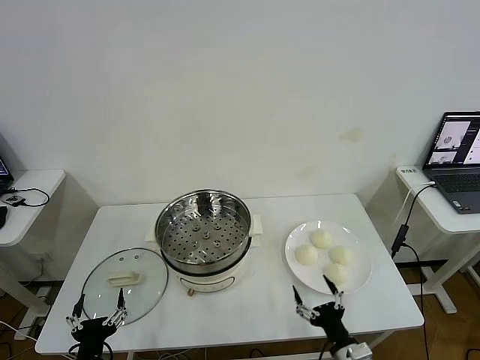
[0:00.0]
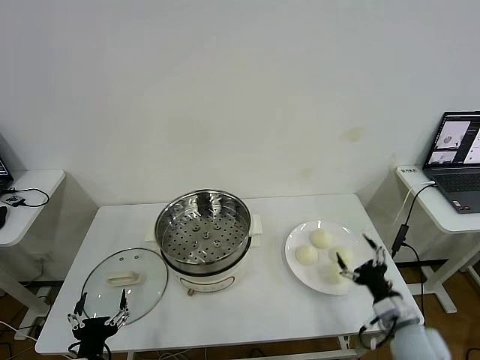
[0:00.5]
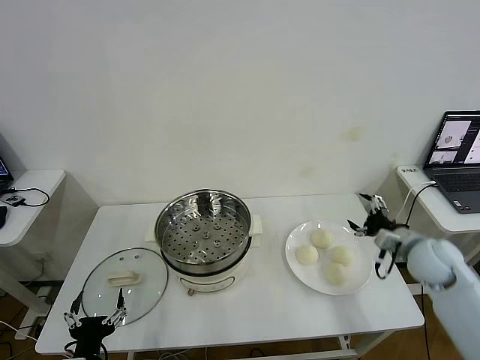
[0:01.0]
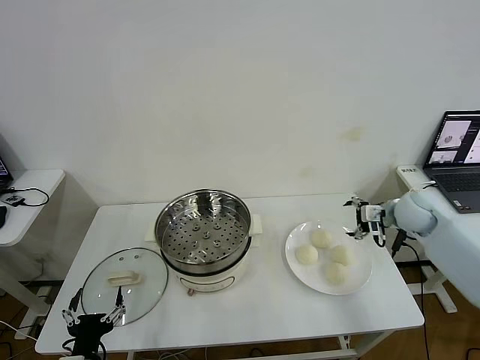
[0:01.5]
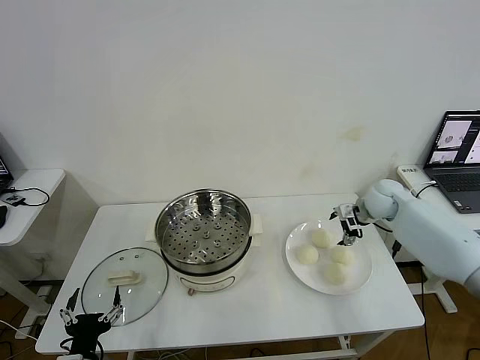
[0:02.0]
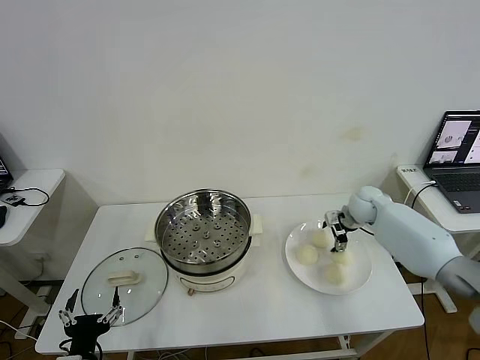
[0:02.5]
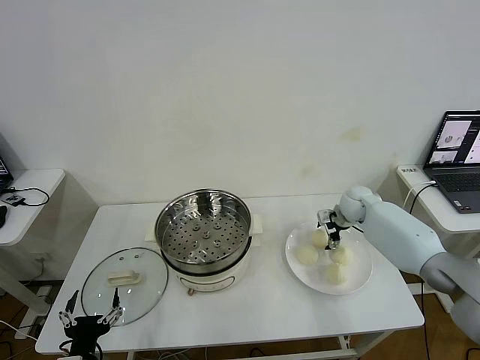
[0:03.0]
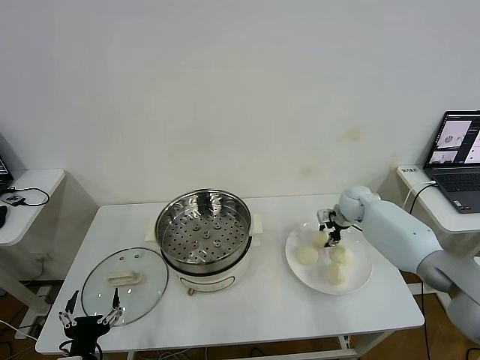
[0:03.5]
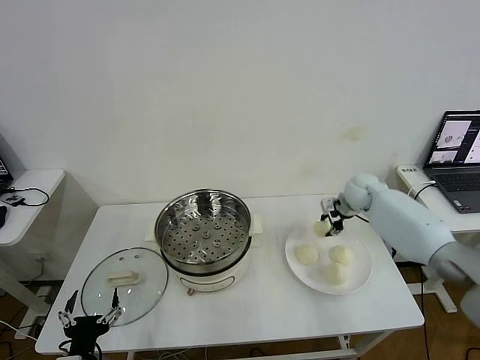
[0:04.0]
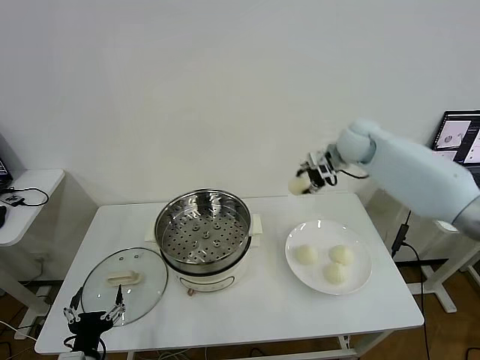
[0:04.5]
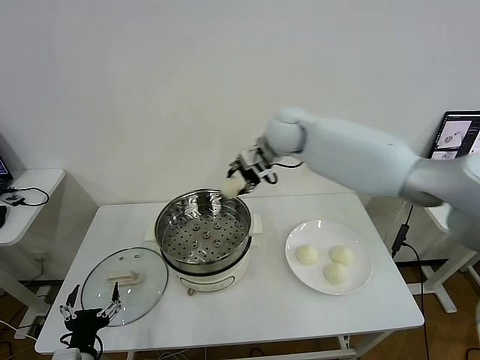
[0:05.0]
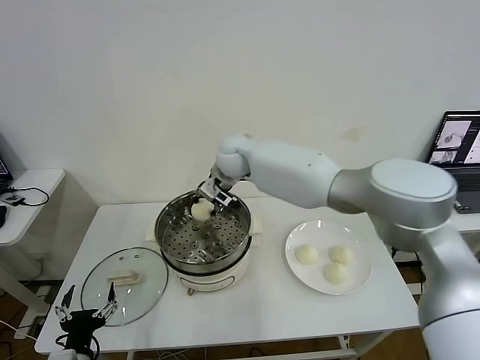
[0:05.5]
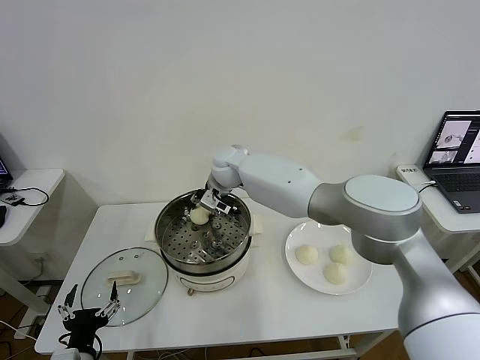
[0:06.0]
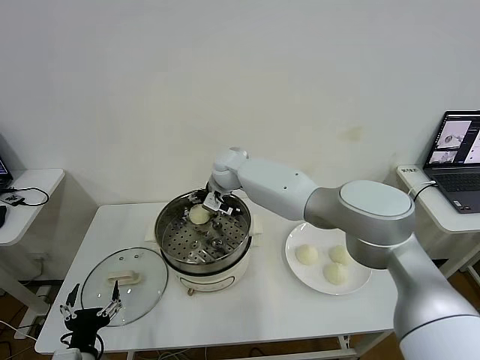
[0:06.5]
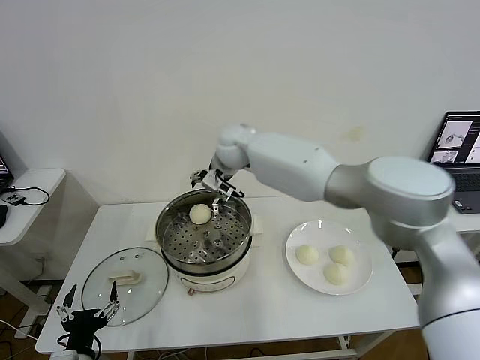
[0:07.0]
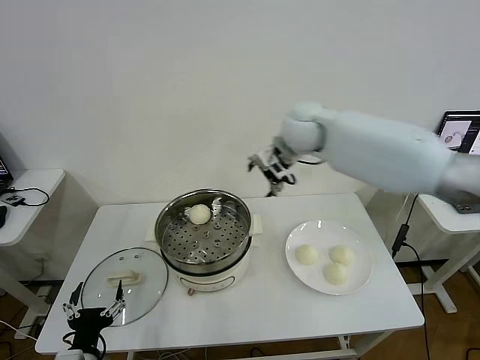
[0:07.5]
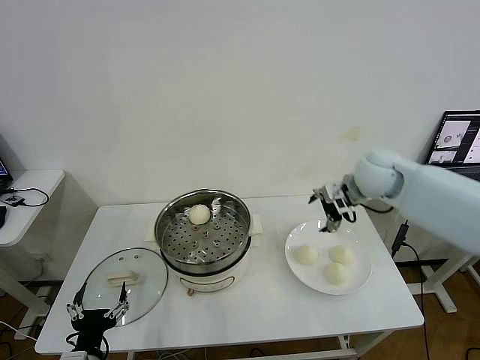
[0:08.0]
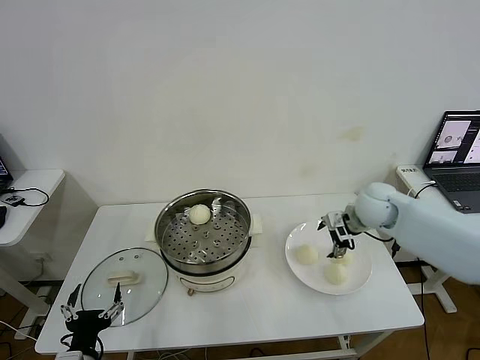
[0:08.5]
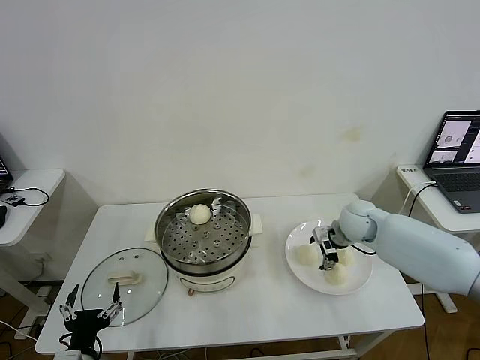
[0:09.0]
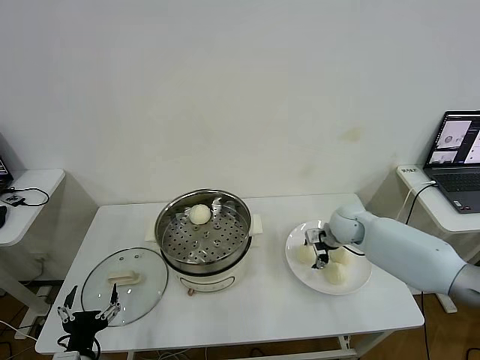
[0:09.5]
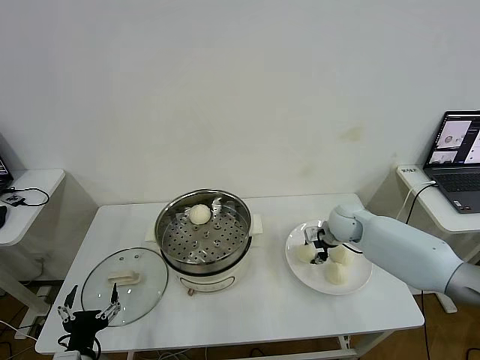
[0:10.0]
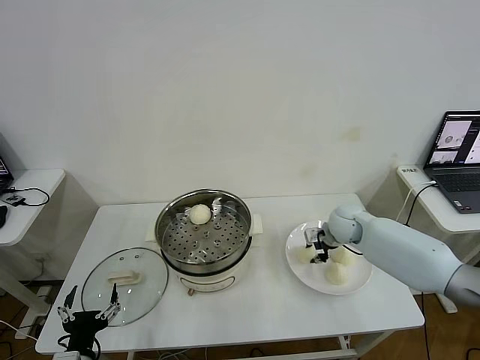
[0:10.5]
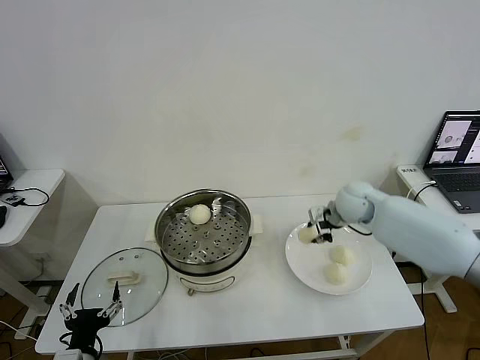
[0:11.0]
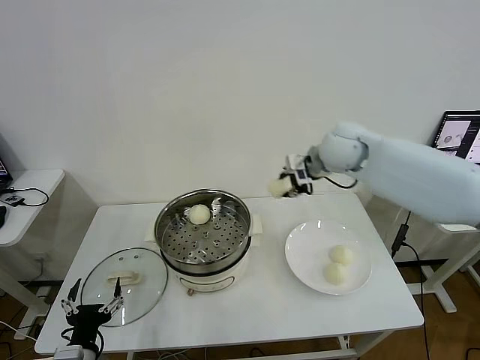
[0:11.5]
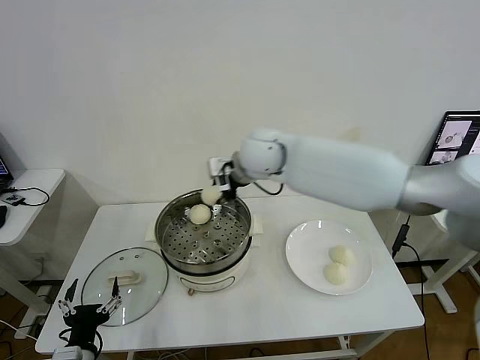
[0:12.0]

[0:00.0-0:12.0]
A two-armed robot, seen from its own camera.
Step, 0:00.0 to 0:03.0: Grasp the baozi in the plate with right gripper.
Step, 0:03.5 to 0:06.5: Place the baozi on the steamer with right gripper.
Step, 0:07.0 to 0:10.5: Grasp the baozi in the plate with right gripper.
0:02.0 to 0:04.0: The right gripper shifts by about 5 cm, and closes its fingers.
0:04.0 to 0:06.0: The right gripper goes roughly 35 cm to the left.
0:06.0 to 0:08.0: The right gripper travels to the right by about 35 cm, and opens its fingers.
0:08.0 to 0:10.0: The right gripper moves downward, about 15 cm, and closes its fingers.
0:10.0 to 0:12.0: The right gripper is displaced to the left and upward by roughly 30 cm.

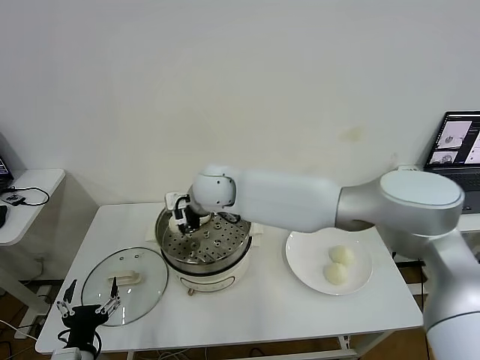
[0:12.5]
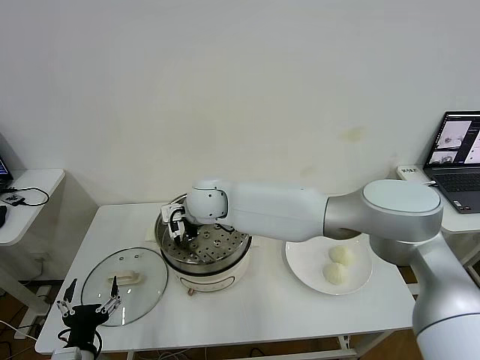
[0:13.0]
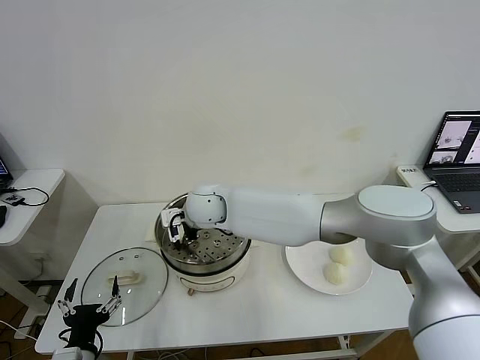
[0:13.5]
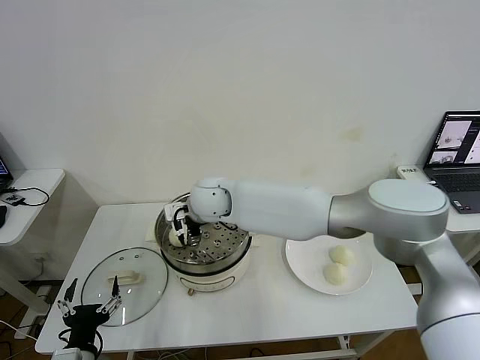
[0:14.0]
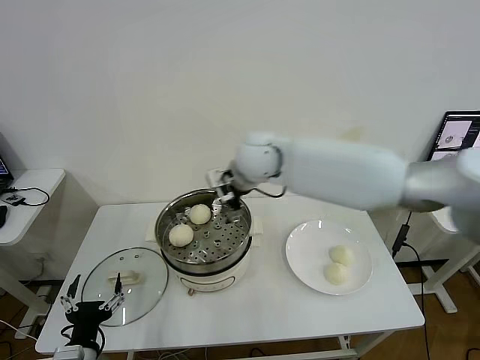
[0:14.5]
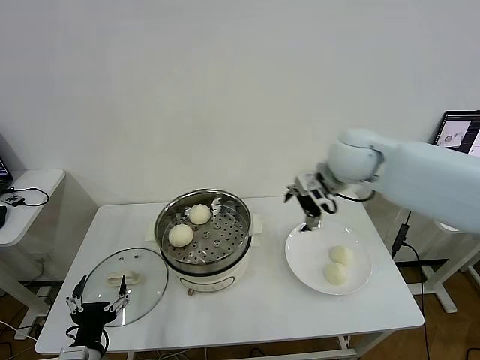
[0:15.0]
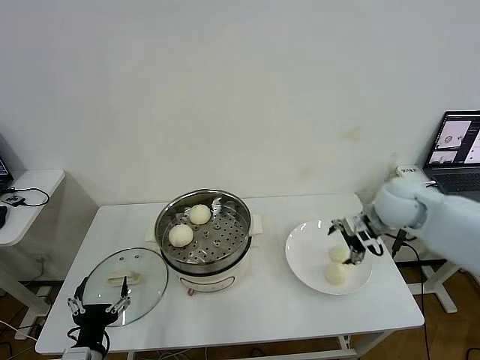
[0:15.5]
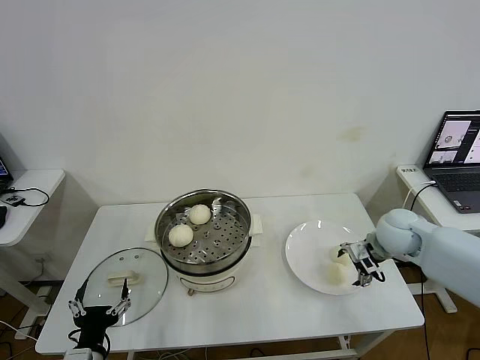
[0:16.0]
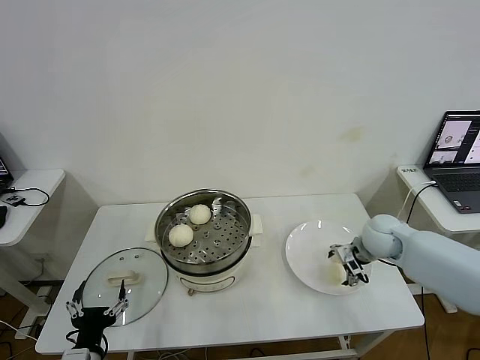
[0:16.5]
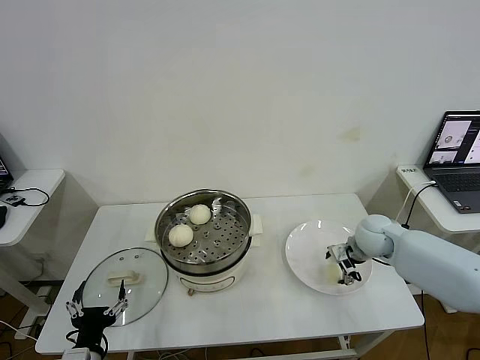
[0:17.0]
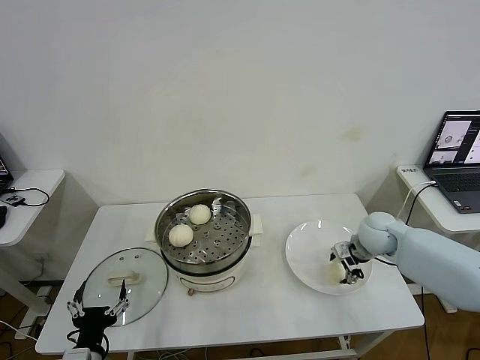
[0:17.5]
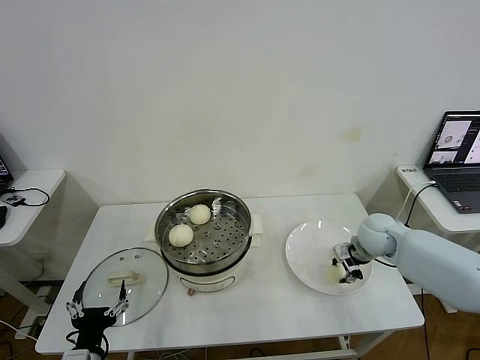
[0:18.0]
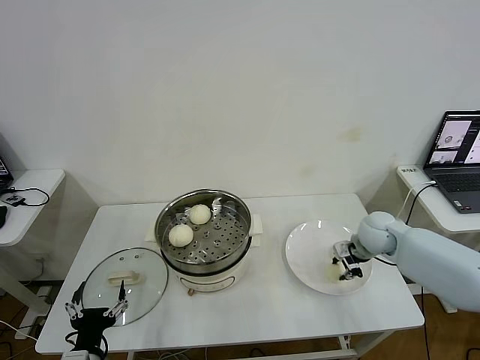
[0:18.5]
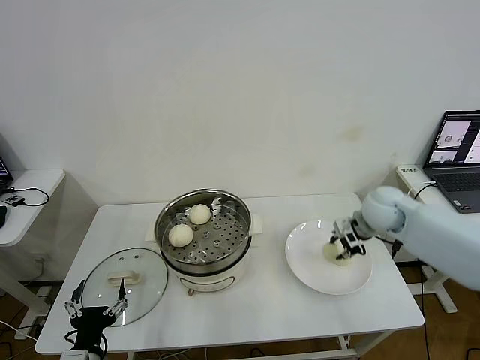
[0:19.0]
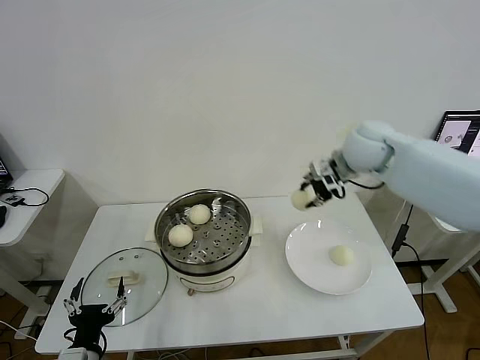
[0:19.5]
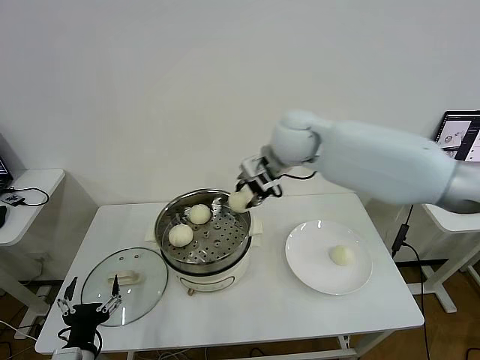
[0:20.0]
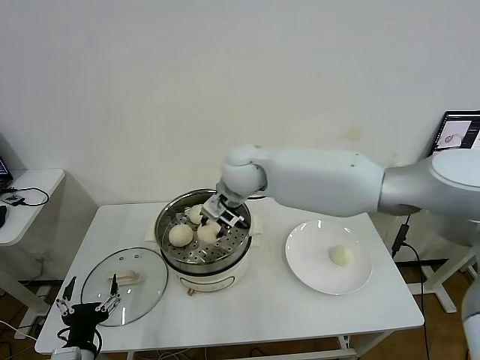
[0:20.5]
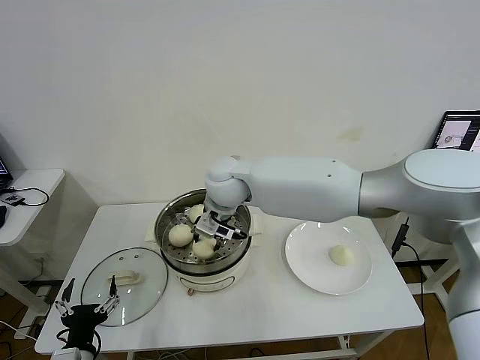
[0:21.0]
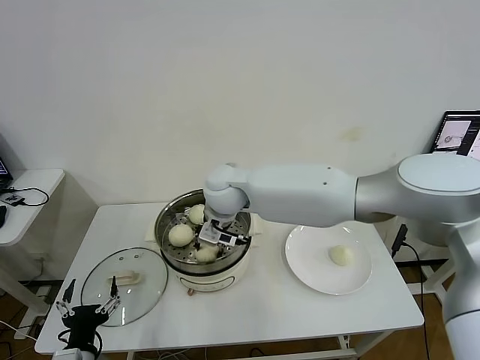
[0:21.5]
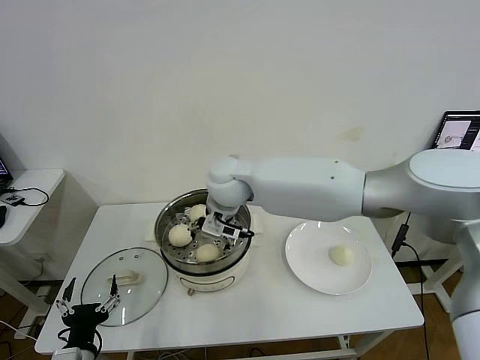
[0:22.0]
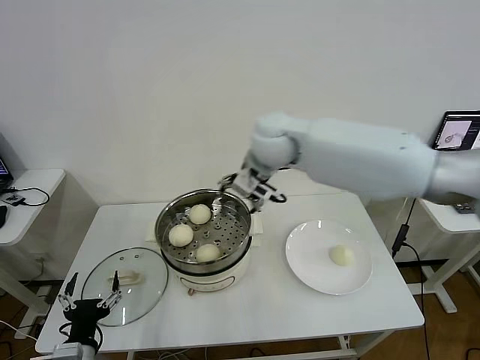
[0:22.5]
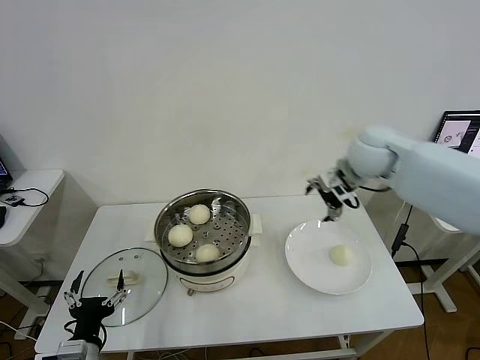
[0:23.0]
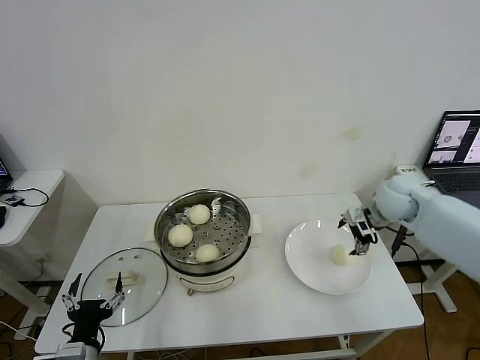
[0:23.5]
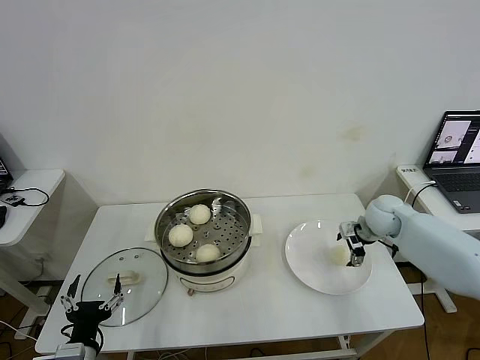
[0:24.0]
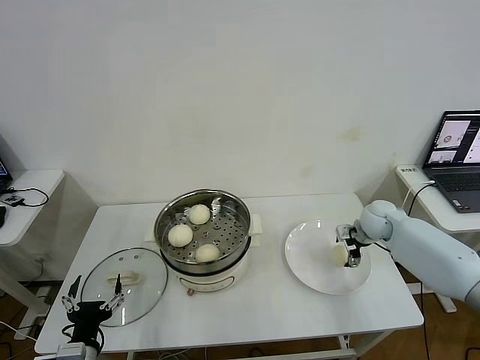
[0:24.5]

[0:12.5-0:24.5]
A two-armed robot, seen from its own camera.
Step, 0:14.0 to 0:18.0: Grasp the baozi in the plate with right gripper.
Step, 0:19.0 to 0:21.5: Place the baozi on the steamer with right gripper.
0:12.5 to 0:14.5: The right gripper moves to the right and upward, roughly 15 cm, and opens up.
0:14.5 to 0:16.5: The right gripper travels to the right and downward by roughly 35 cm.
0:16.5 to 0:18.5: The right gripper closes its fingers.
0:18.5 to 0:20.5: The right gripper heads to the left and upward, covering some 35 cm.
0:20.5 to 0:22.5: The right gripper shifts approximately 10 cm upward and to the right, and opens.
0:22.5 to 0:24.5: The right gripper is displaced to the right and downward by some 40 cm.

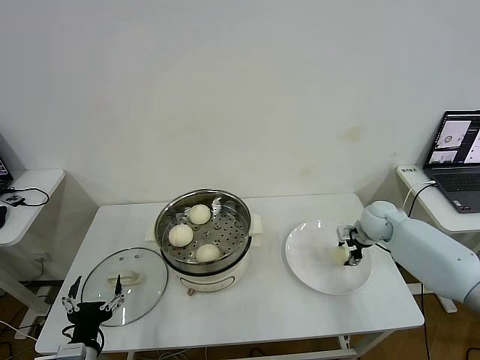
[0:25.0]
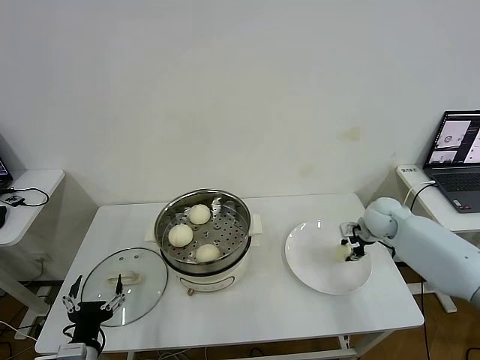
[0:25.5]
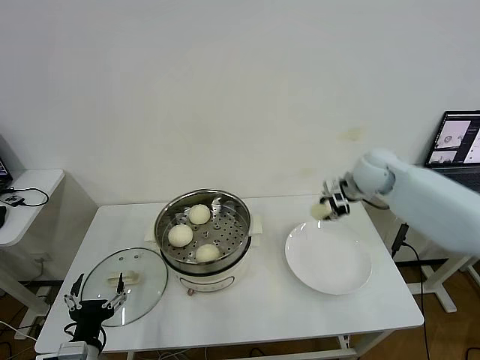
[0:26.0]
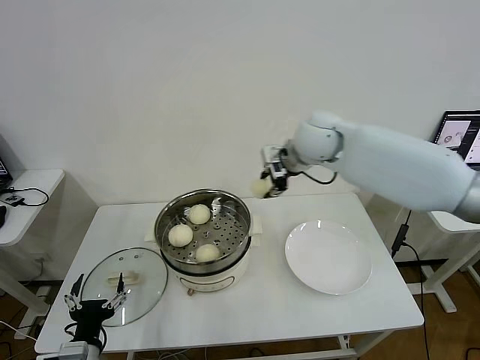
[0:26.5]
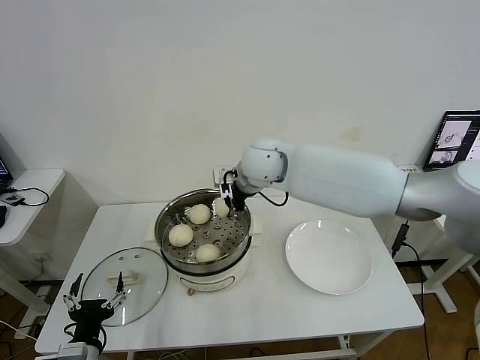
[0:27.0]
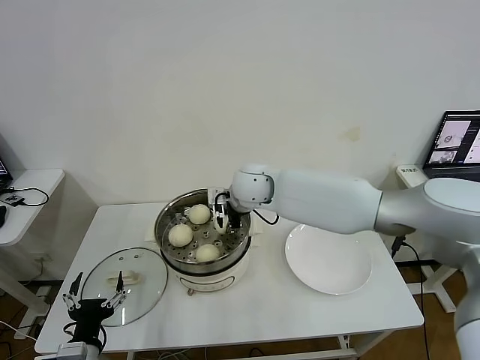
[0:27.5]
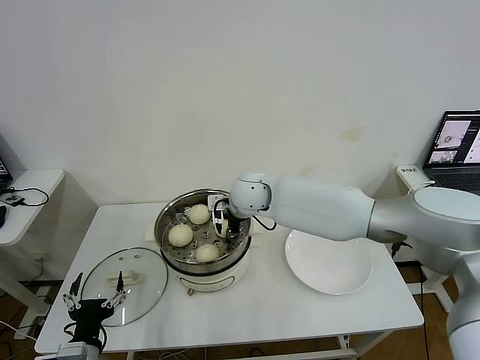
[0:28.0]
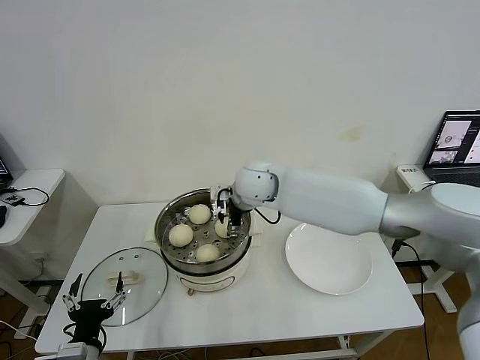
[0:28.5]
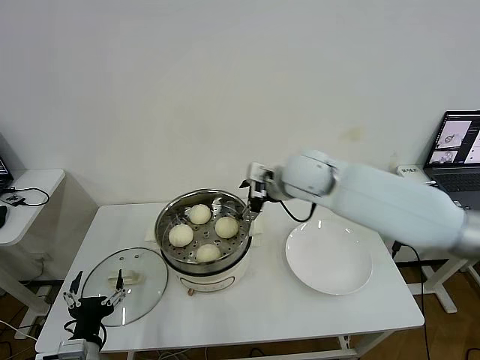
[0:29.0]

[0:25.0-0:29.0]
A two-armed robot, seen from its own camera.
Step, 0:26.0 to 0:28.5: Place the baozi on the steamer with right gripper.
0:25.0 to 0:27.0: The right gripper is displaced to the left and upward by some 35 cm, and closes.
0:27.0 to 0:29.0: The right gripper heads to the right, covering some 5 cm, and opens up.
